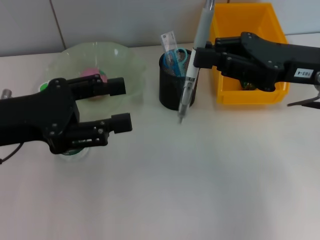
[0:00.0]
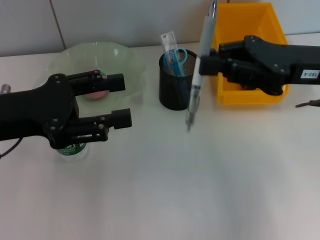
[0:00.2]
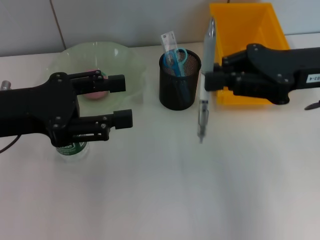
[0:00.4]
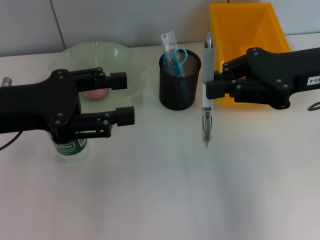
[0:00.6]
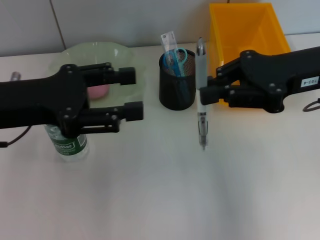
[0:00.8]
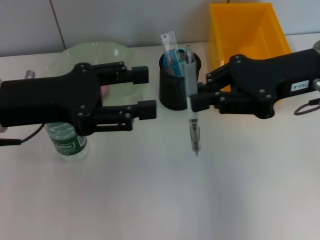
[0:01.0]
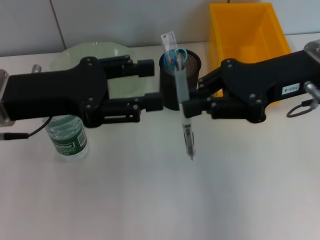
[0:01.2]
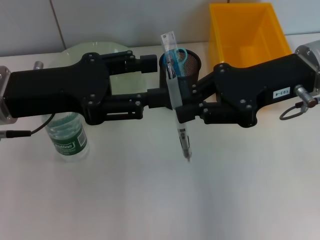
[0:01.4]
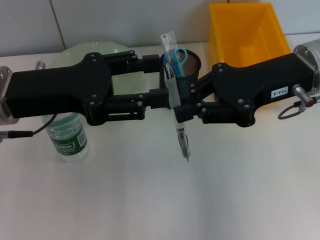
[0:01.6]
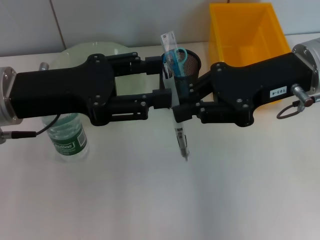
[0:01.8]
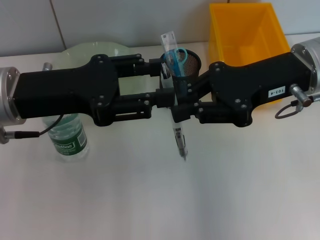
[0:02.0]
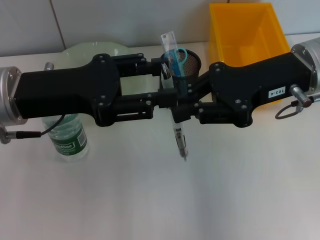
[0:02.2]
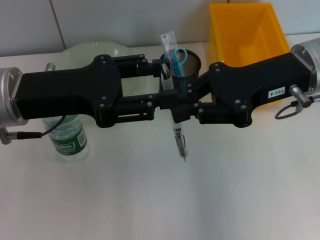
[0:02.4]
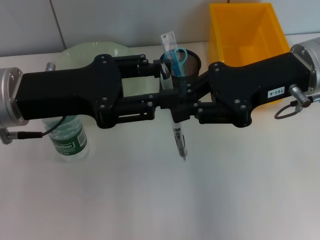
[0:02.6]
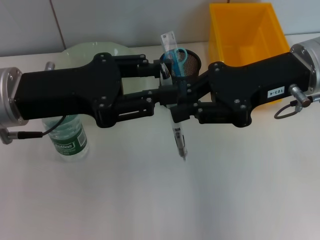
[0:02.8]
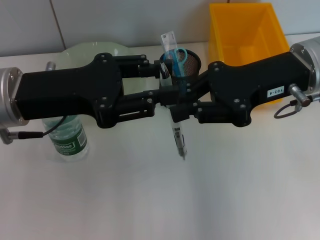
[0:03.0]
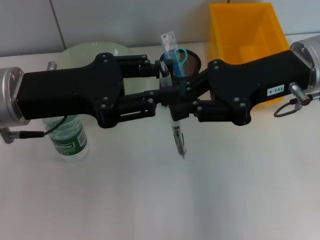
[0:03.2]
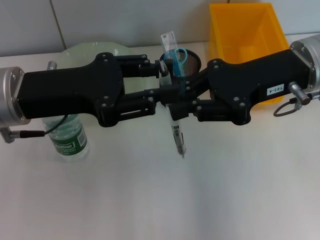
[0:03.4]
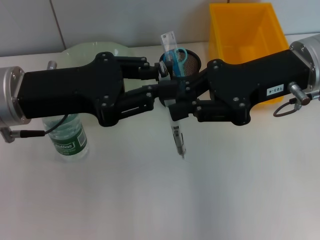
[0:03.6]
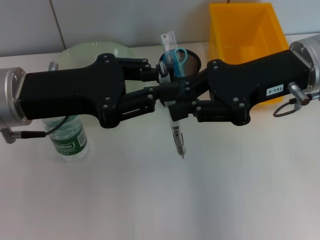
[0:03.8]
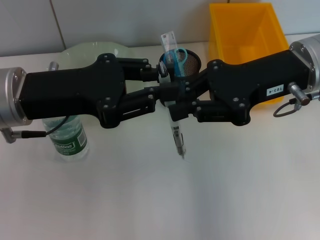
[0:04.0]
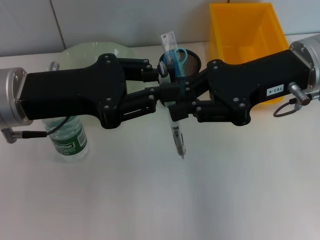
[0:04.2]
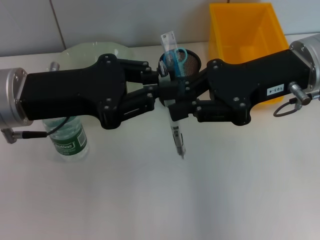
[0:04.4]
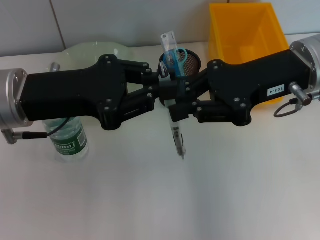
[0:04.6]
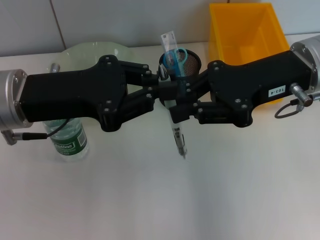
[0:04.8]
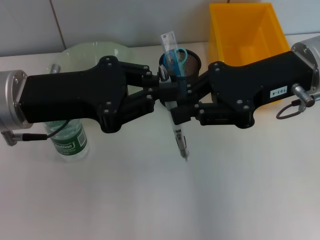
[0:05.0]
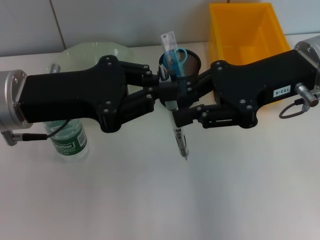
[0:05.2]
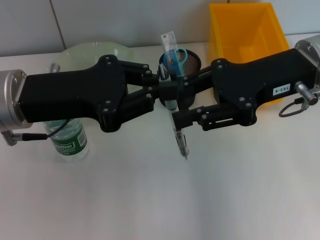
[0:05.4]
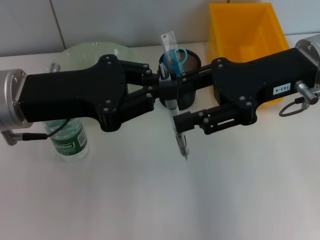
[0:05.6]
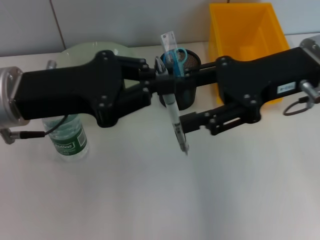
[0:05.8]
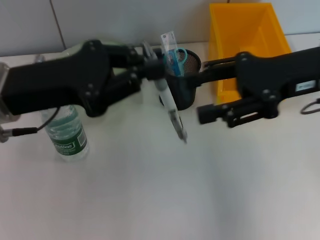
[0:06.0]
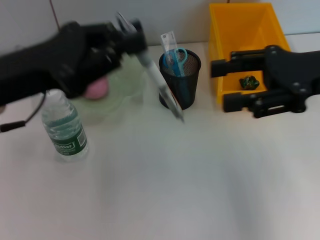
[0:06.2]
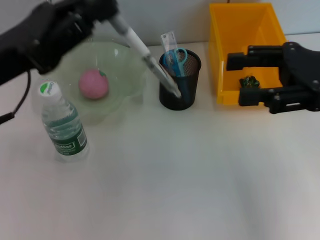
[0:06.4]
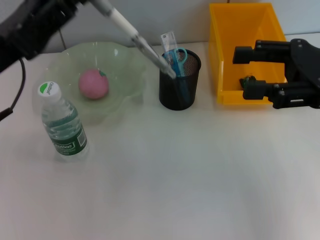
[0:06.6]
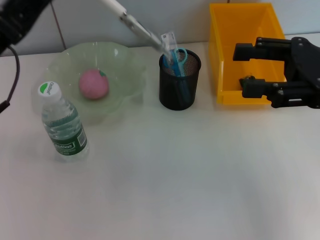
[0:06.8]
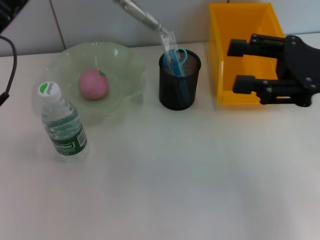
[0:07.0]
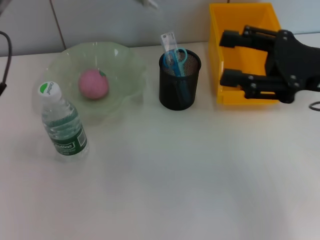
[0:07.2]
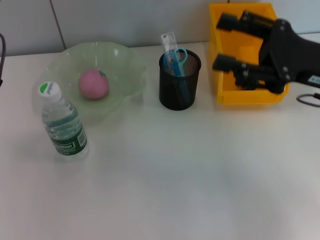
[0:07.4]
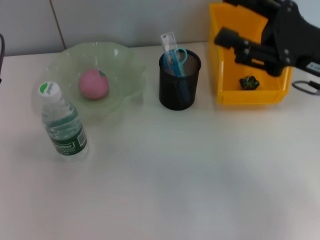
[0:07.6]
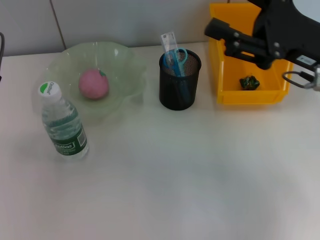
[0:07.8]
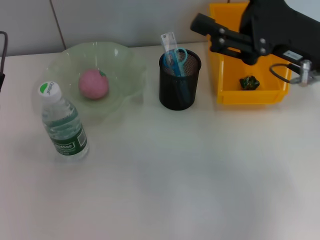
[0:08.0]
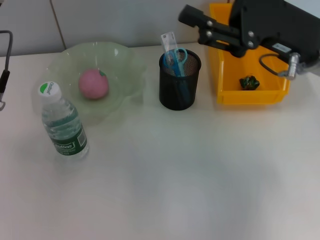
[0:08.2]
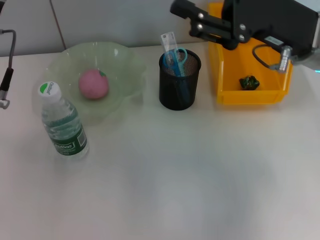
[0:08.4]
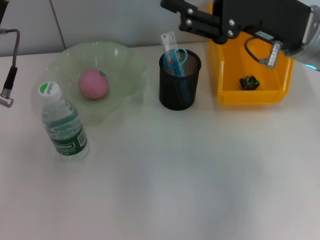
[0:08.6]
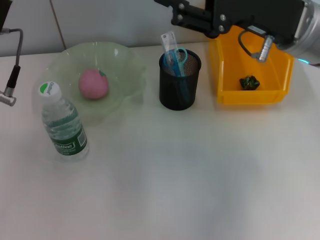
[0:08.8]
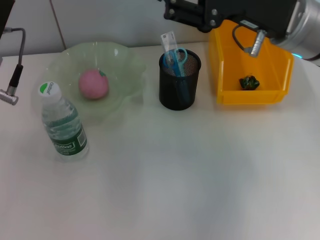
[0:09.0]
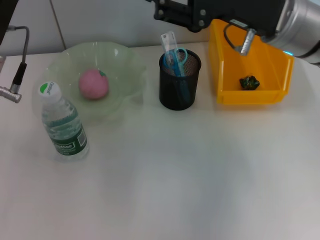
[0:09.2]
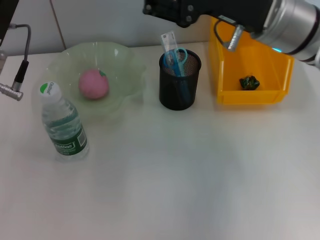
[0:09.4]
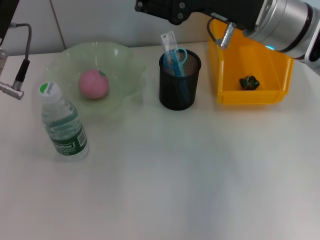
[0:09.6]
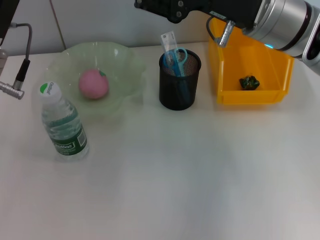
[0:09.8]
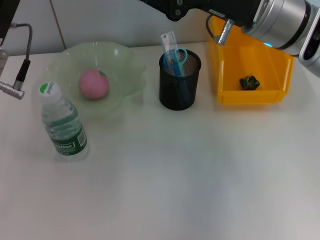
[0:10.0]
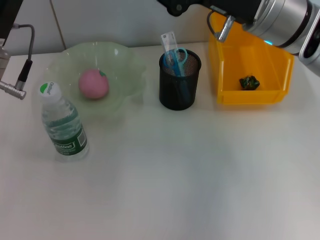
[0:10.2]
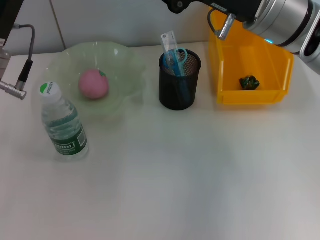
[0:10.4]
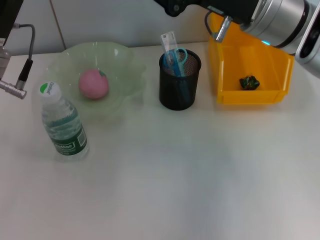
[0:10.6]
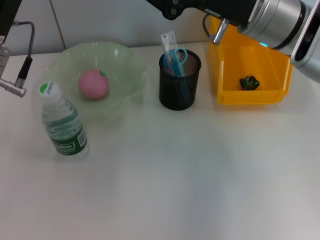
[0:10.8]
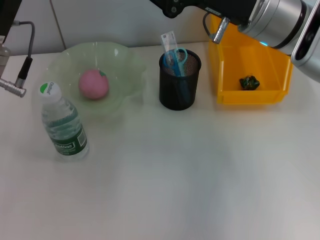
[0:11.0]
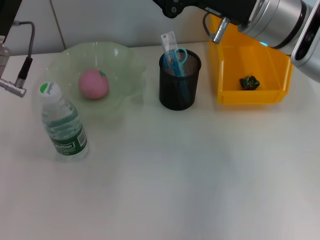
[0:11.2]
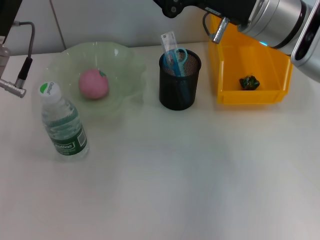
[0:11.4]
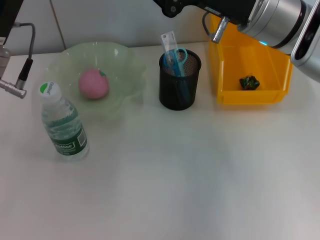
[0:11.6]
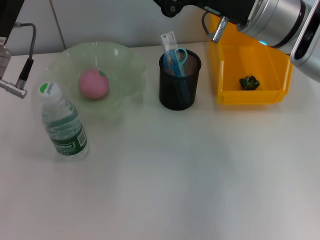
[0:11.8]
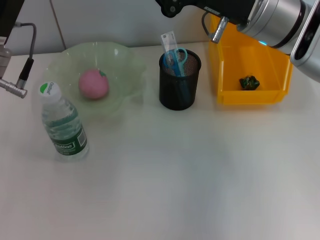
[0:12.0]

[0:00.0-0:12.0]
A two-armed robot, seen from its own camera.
Step, 0:00.0 to 0:05.6: Pass the gray spring-action pen from the right hand to the left hand.
0:01.6 to 0:04.4: Both grippers stay about where they are.
0:04.4 to 0:06.0: The right gripper opens its fingers.
0:07.6 to 0:09.0: The right gripper is displaced to the left by about 5 cm.
0:09.0 to 0:10.4: The right gripper closes.
0:10.4 to 0:12.0: Both grippers stay about where they are.

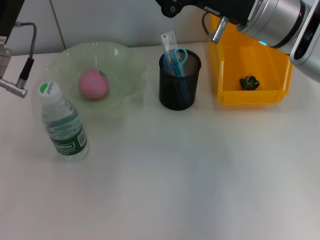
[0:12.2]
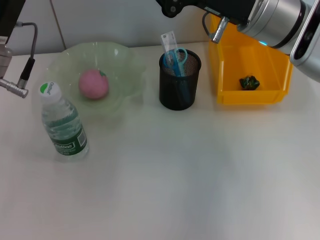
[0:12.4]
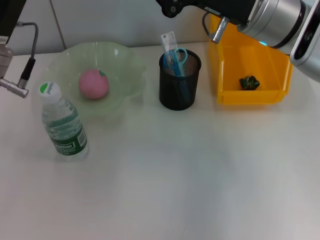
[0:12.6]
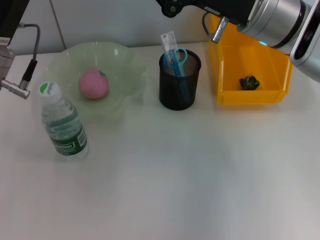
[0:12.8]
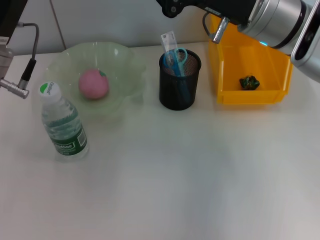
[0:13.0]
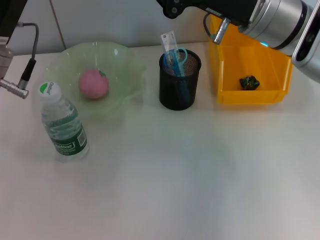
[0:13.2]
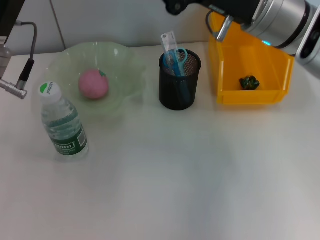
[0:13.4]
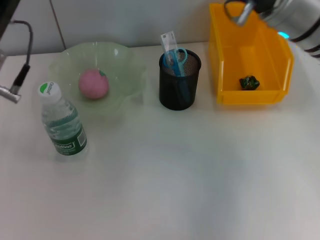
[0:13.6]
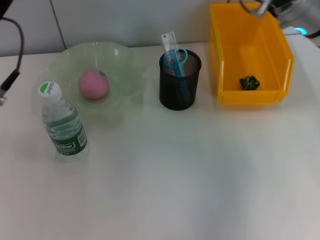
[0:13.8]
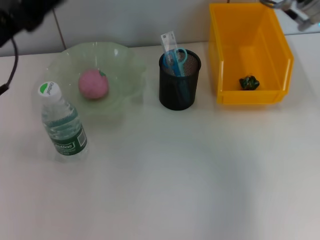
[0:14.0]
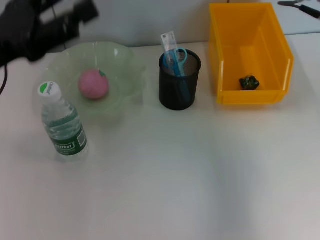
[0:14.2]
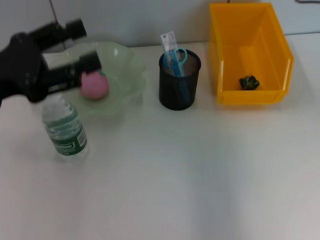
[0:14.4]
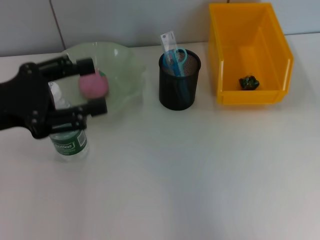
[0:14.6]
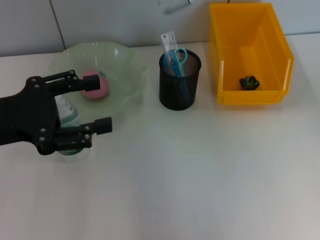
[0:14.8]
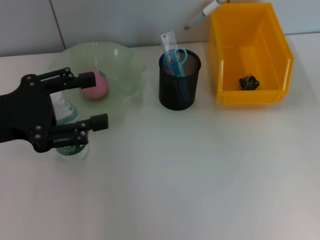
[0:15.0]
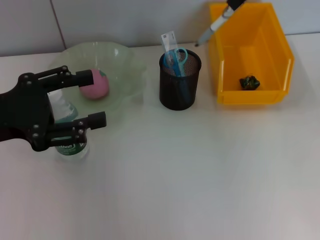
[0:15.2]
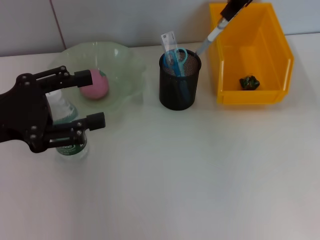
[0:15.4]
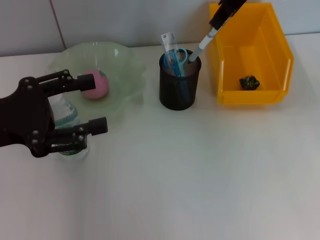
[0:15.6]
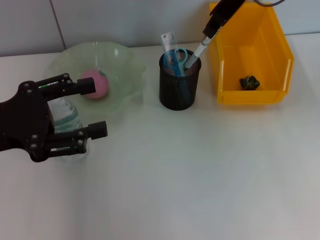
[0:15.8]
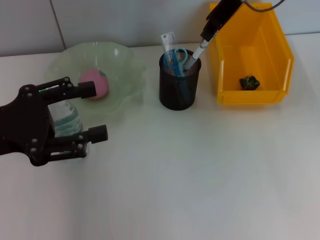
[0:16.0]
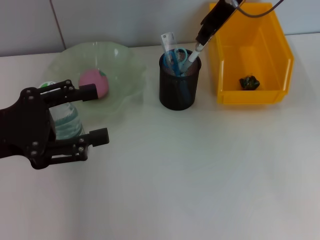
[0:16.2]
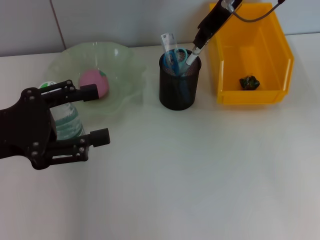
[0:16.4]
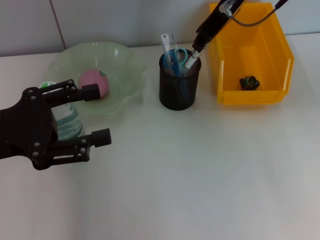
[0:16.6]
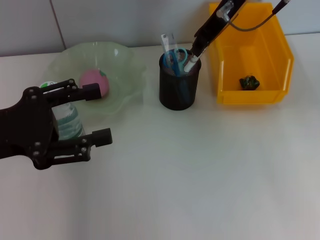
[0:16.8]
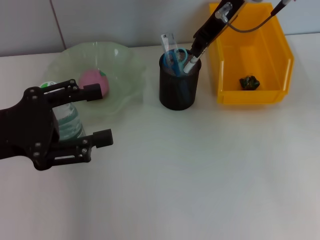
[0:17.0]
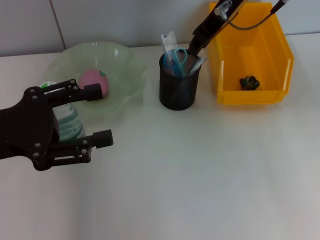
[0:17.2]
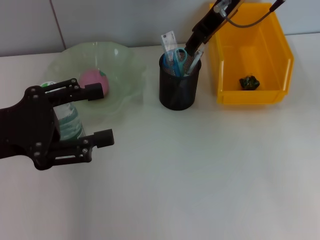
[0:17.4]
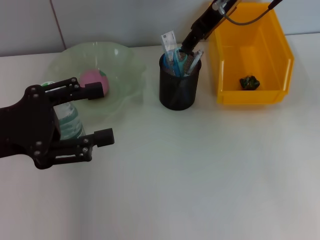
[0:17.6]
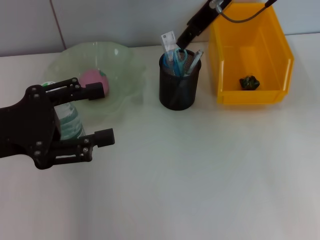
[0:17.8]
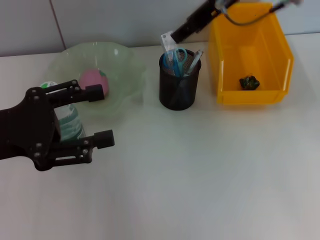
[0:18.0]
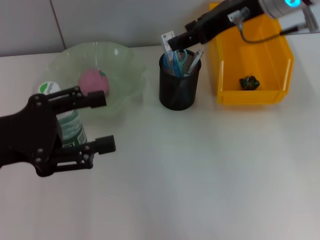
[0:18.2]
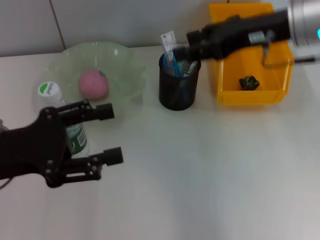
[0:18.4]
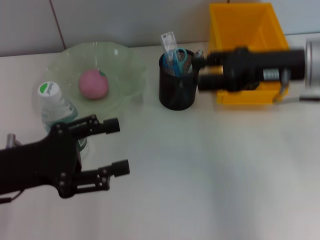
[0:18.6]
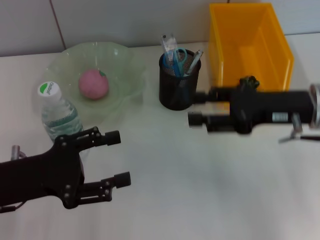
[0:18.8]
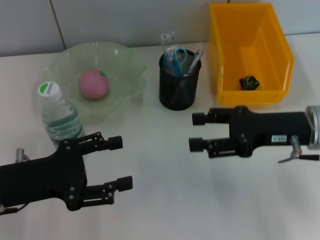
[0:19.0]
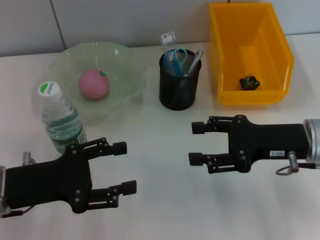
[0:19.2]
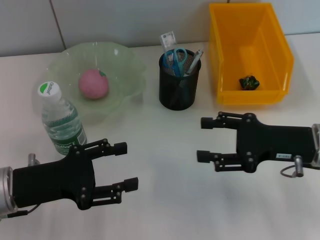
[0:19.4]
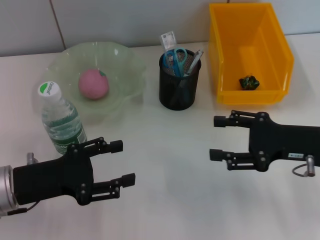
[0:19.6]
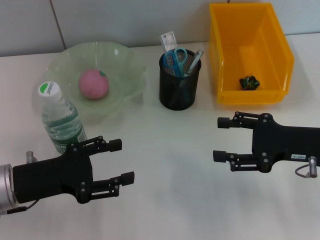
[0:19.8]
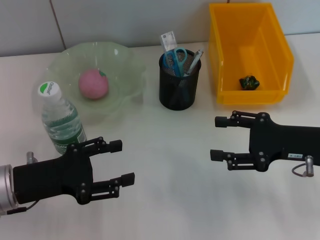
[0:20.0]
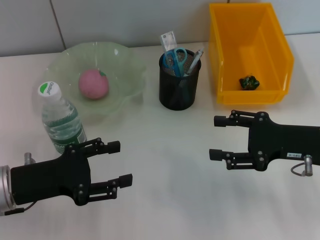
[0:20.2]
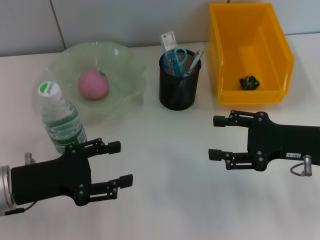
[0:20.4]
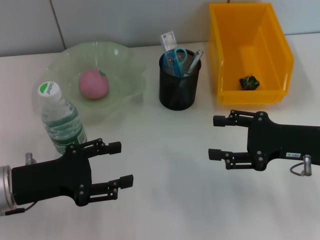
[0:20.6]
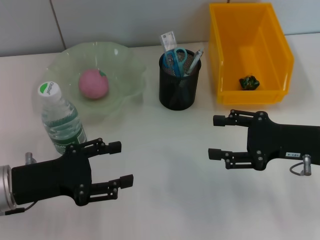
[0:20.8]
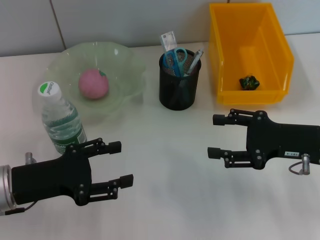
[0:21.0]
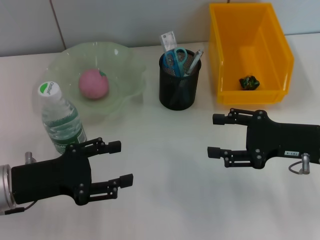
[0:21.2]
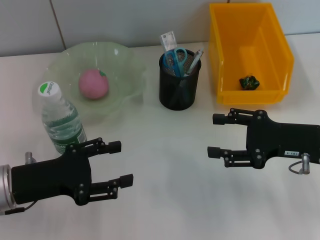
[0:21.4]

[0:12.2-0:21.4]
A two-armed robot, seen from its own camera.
Step, 0:14.0 to 0:17.2: Place the gray spring-action pen into the pen holder with the right hand.
0:12.2 to 0:13.8: The left gripper opens.
0:13.8 to 0:15.2: The left gripper ends up about 5 cm from where it was, while the right gripper moves upward, about 15 cm.
0:15.2 to 0:16.8: The right gripper shifts roughly 10 cm downward and to the left.
0:16.8 to 0:18.4: The right gripper shifts approximately 10 cm backward and to the right, and opens its fingers.
0:18.4 to 0:19.8: The right gripper moves downward, backward and to the right, about 20 cm, while the left gripper travels downward by roughly 5 cm.
0:19.8 to 0:21.4: Both grippers stay about where they are.

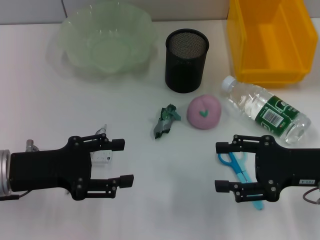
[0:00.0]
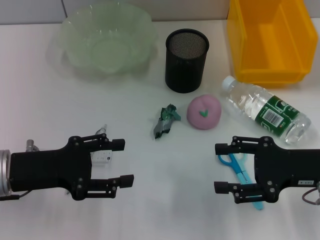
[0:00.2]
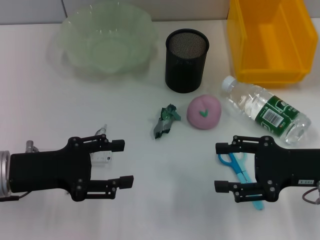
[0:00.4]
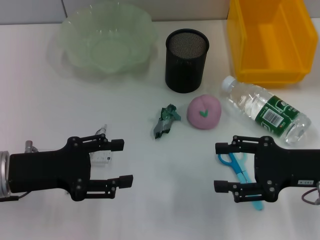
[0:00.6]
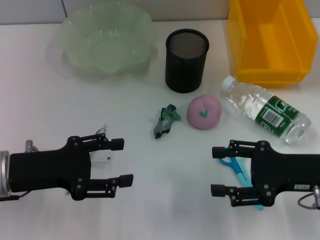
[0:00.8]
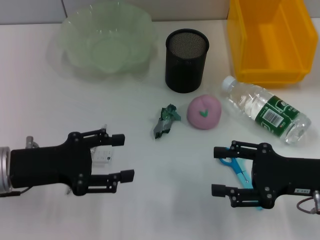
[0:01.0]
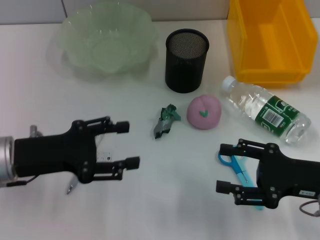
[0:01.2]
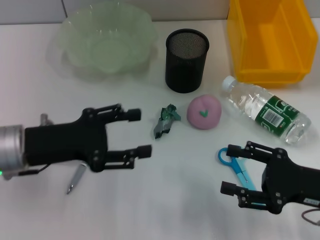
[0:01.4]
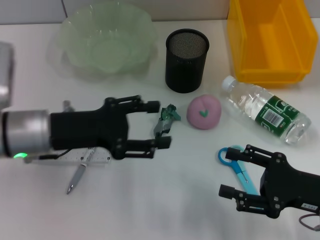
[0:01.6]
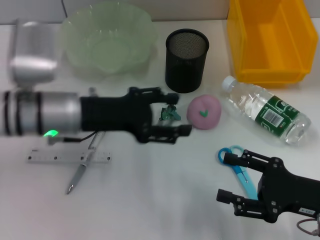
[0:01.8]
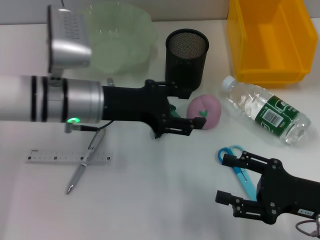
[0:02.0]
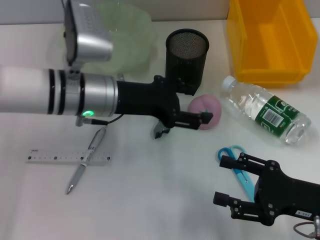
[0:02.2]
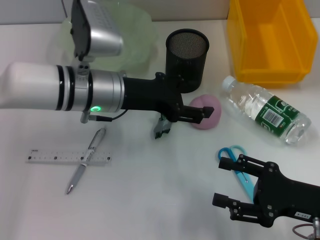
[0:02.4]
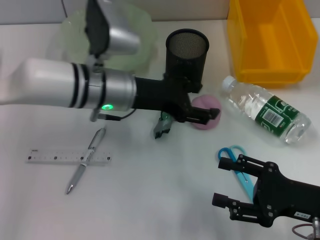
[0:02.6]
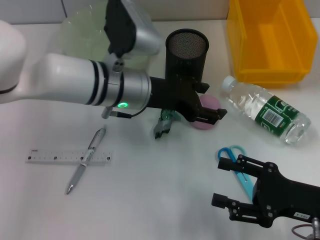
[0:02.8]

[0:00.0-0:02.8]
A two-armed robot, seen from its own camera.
0:00.0 to 0:01.4: The right gripper ends up some 5 cm from where it was.
0:01.4 to 0:02.8: The left gripper moves to the right and forward, approximately 20 cm.
